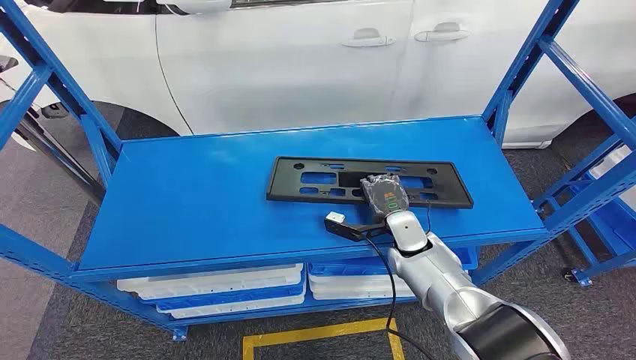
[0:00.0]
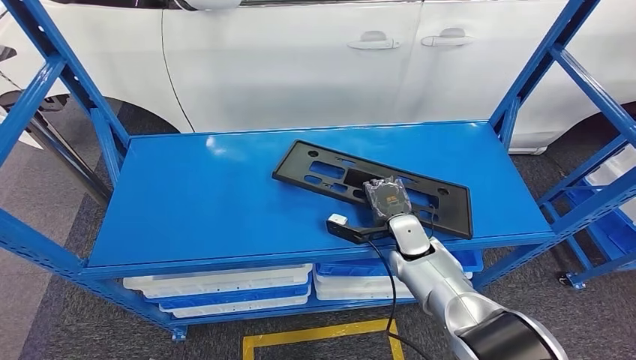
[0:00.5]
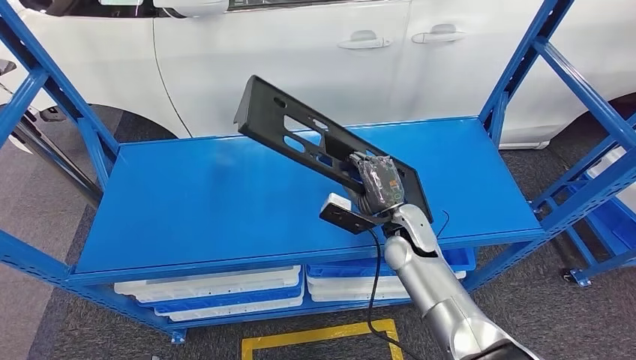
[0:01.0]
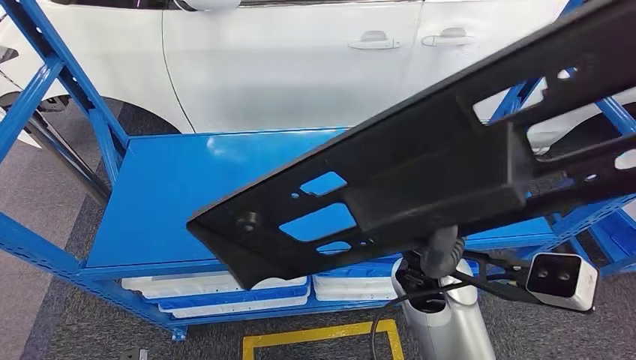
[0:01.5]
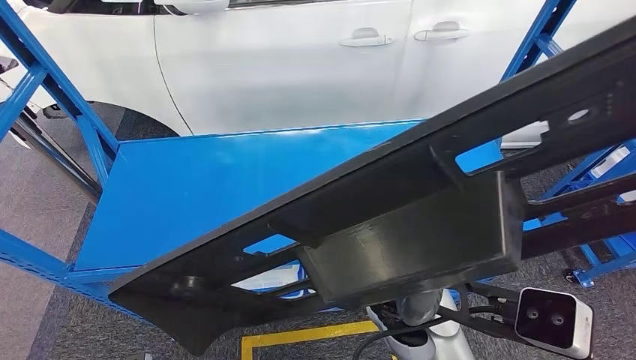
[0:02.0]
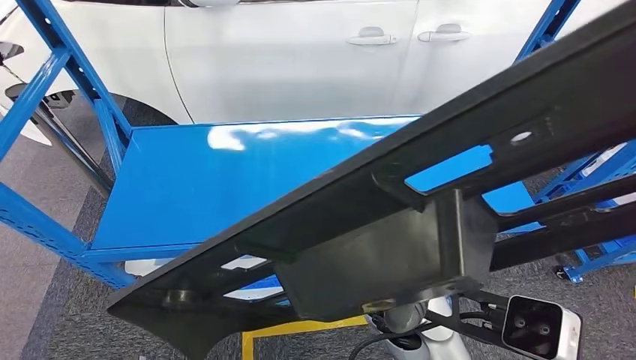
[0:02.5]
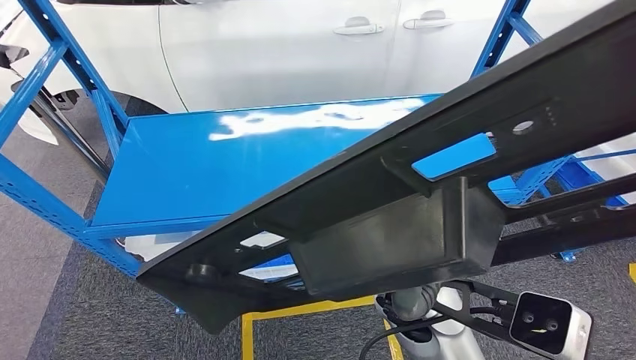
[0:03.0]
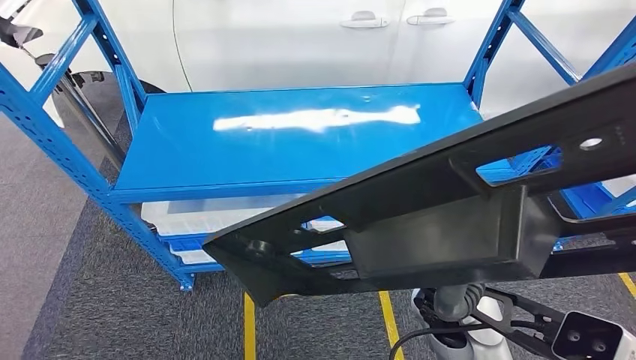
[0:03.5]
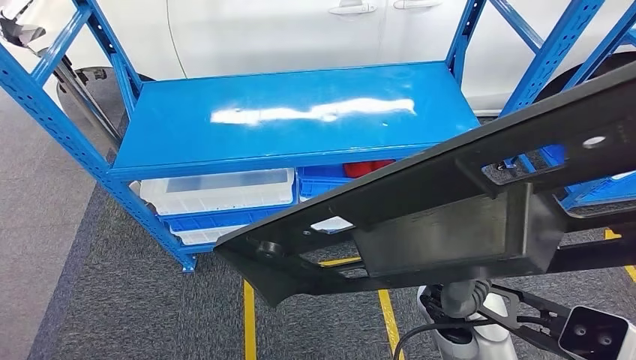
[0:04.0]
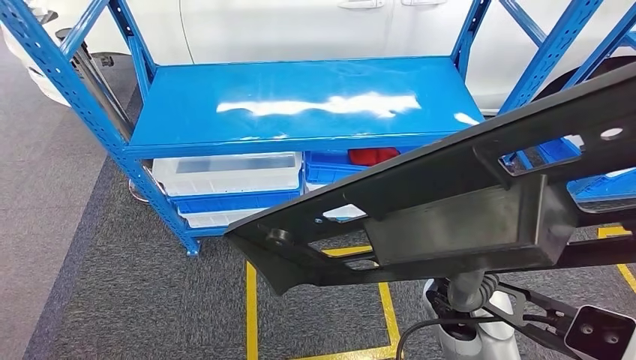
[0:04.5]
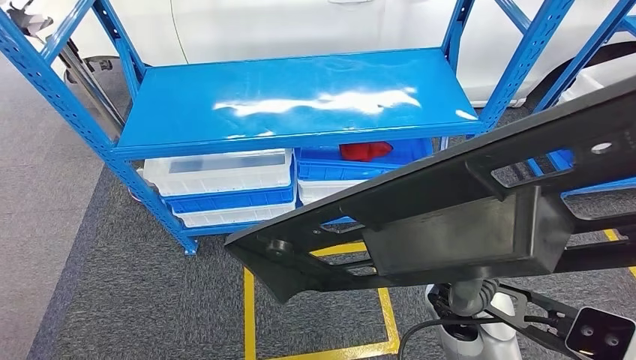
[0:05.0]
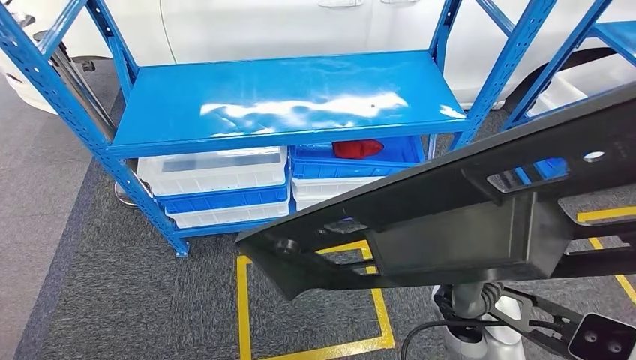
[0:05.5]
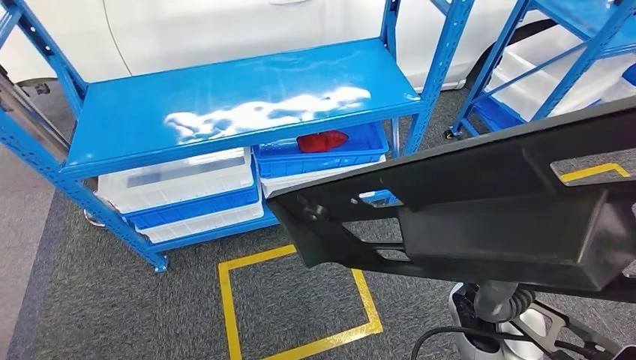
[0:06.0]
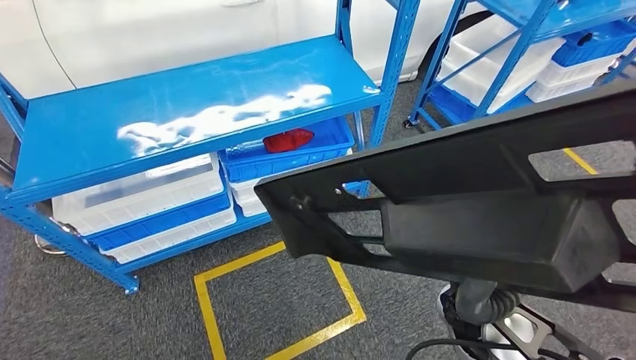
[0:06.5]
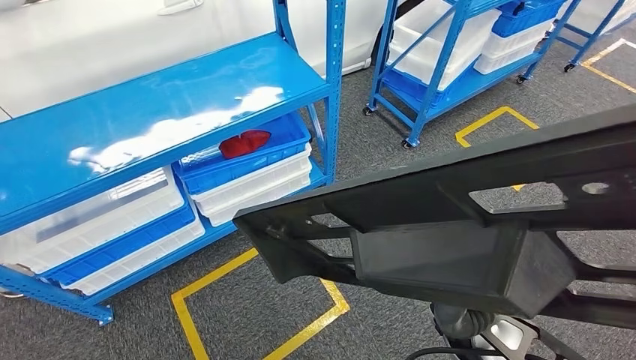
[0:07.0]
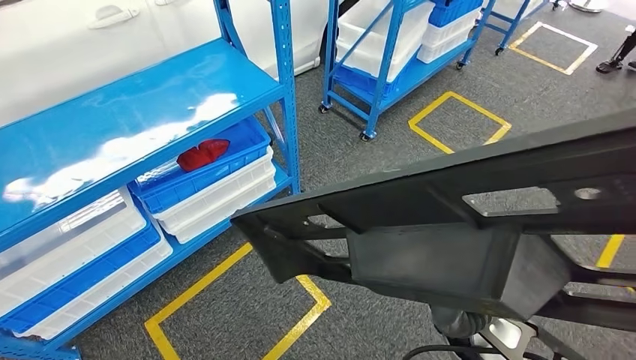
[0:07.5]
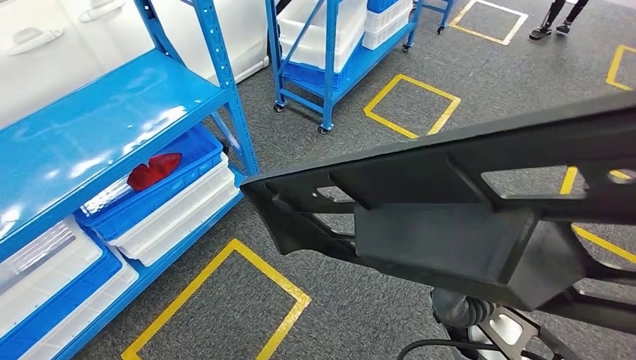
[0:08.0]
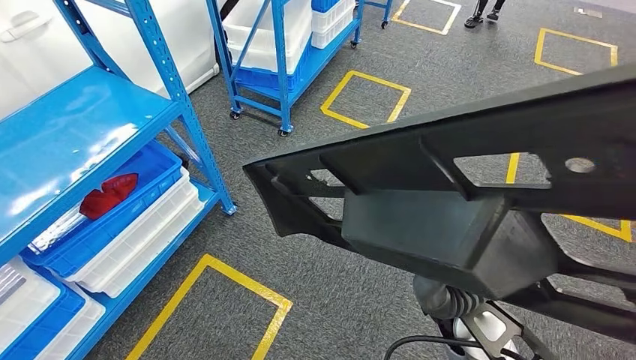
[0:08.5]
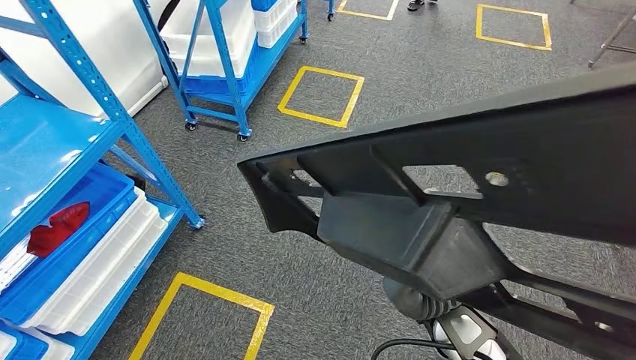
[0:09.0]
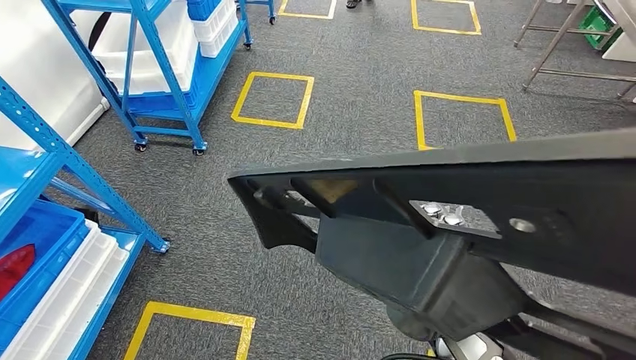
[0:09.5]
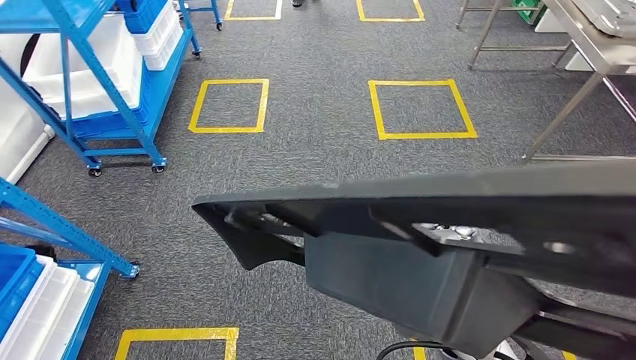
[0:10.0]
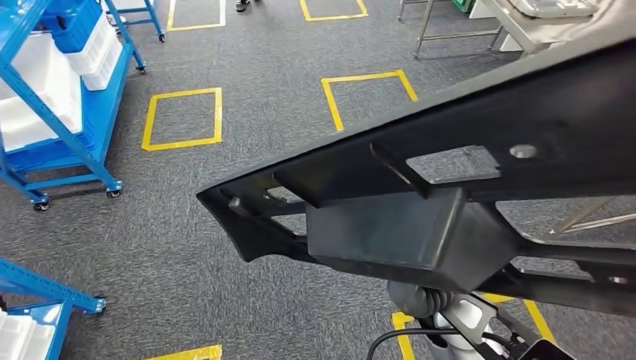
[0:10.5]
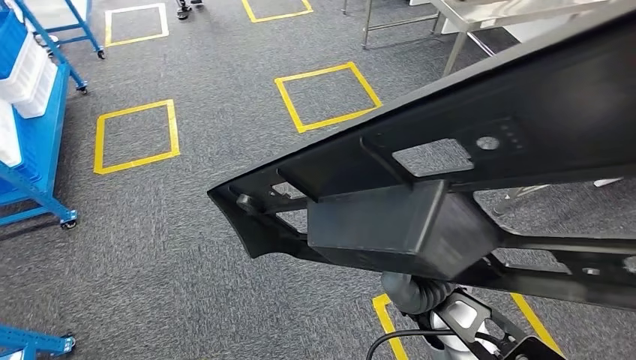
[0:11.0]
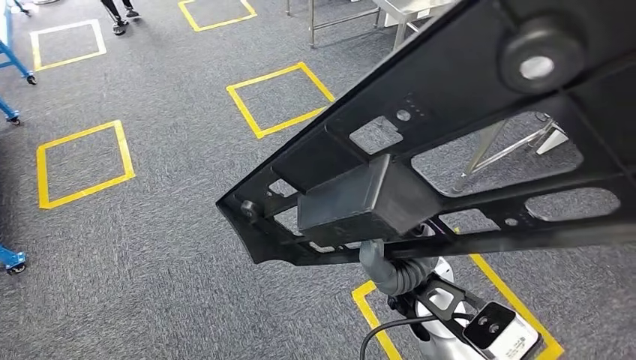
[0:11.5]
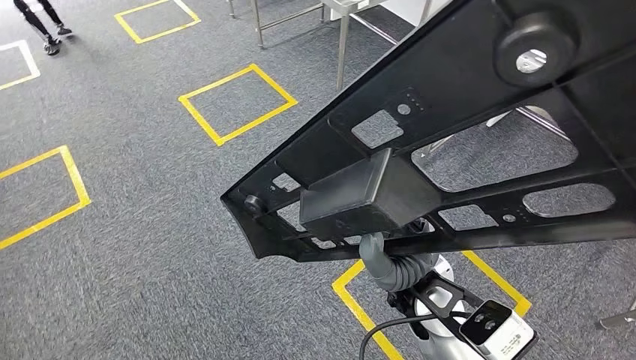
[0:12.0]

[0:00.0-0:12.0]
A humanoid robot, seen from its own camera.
Step, 0:00.0 to 0:04.0: Pick up the large material from the shelf.

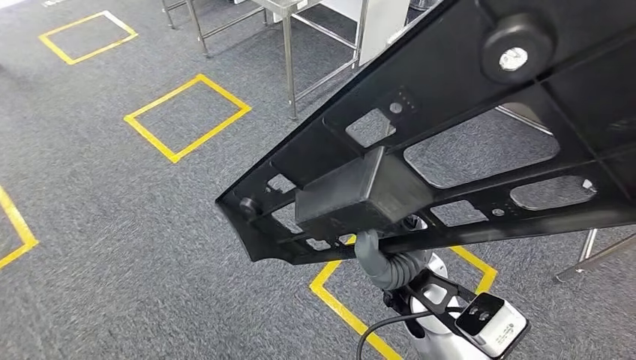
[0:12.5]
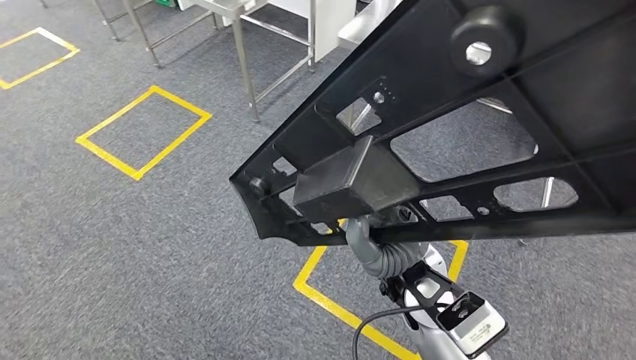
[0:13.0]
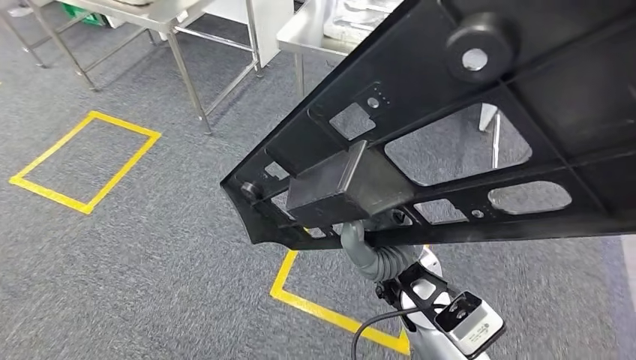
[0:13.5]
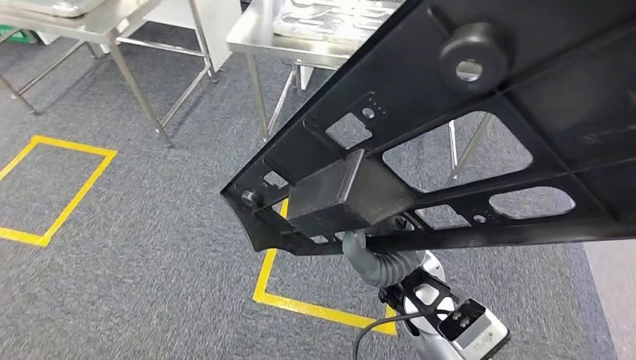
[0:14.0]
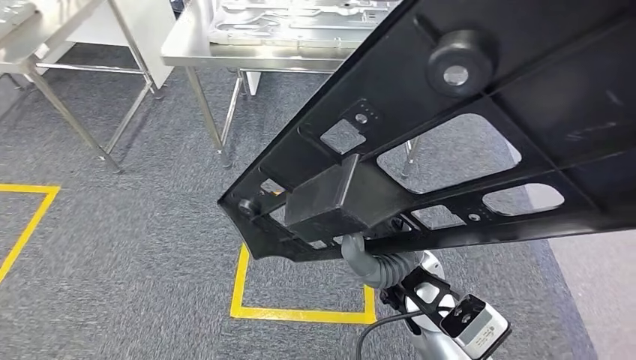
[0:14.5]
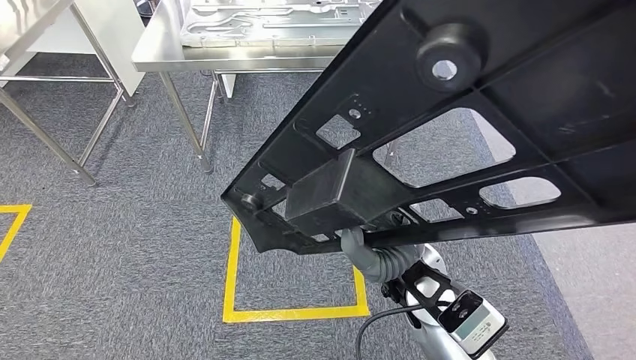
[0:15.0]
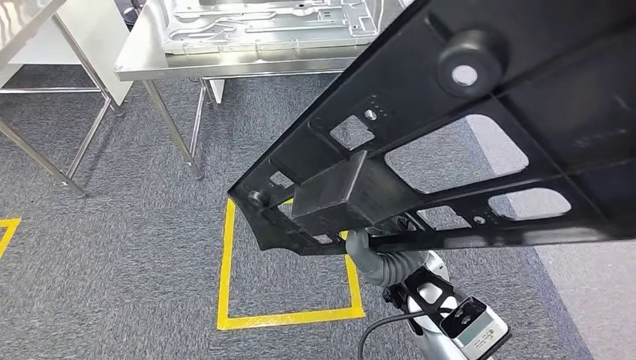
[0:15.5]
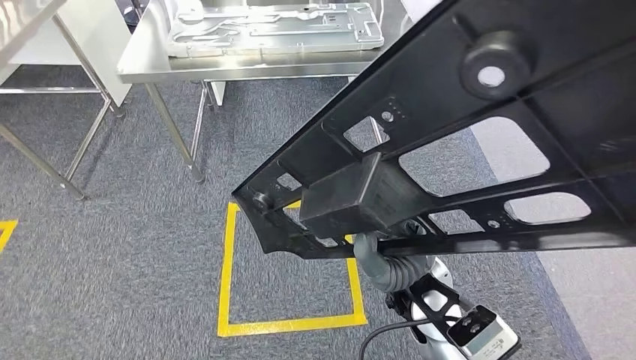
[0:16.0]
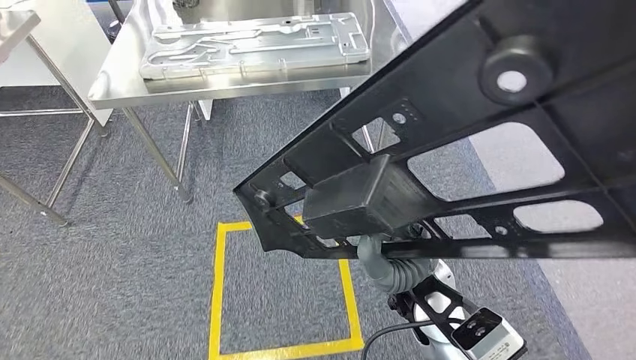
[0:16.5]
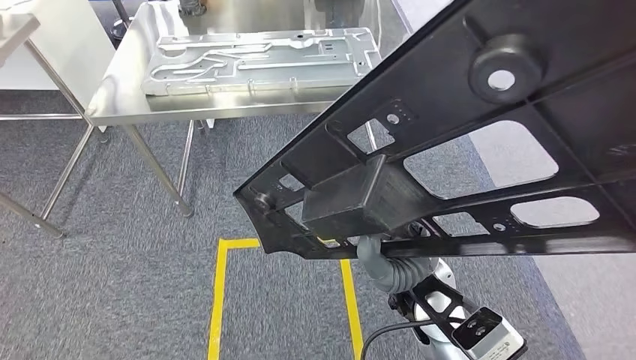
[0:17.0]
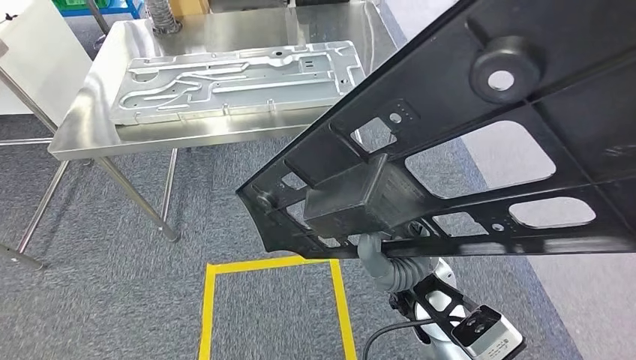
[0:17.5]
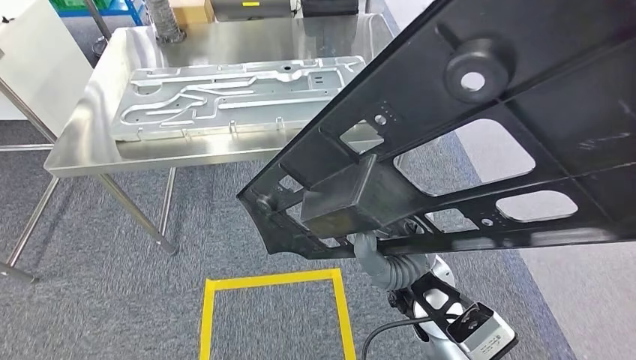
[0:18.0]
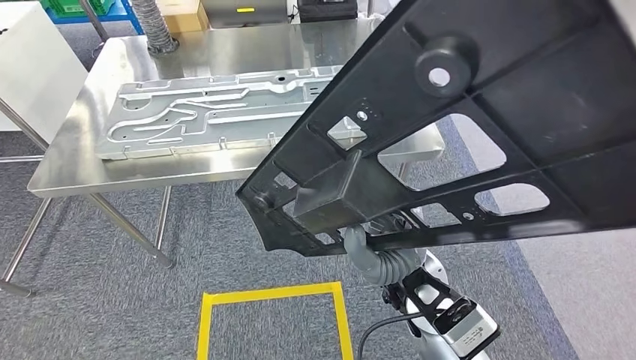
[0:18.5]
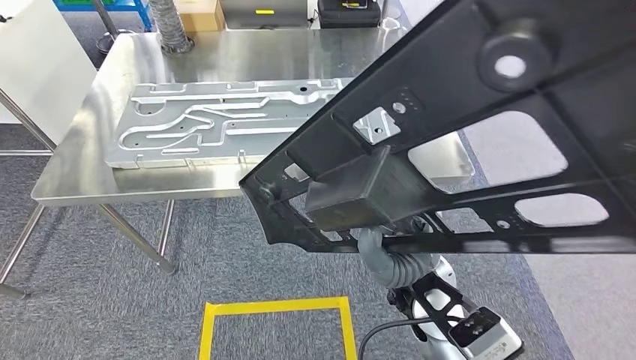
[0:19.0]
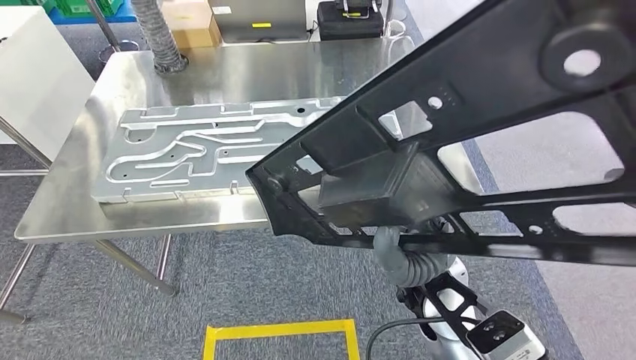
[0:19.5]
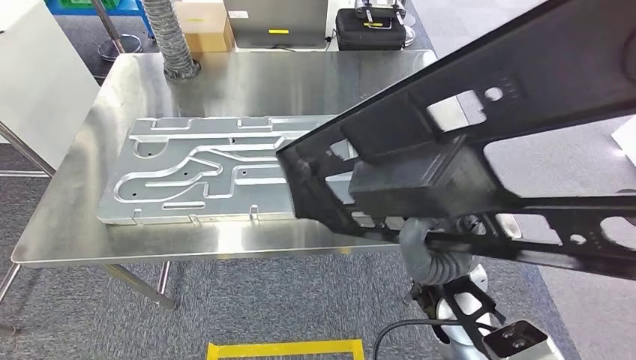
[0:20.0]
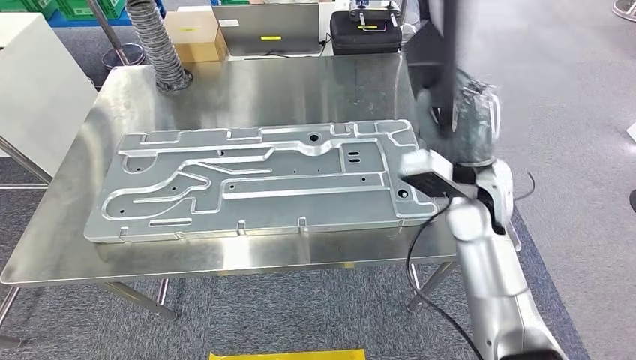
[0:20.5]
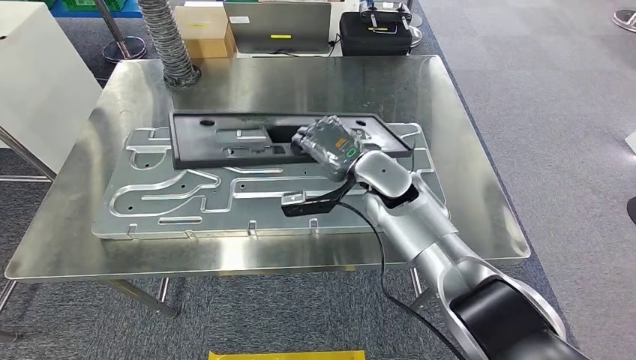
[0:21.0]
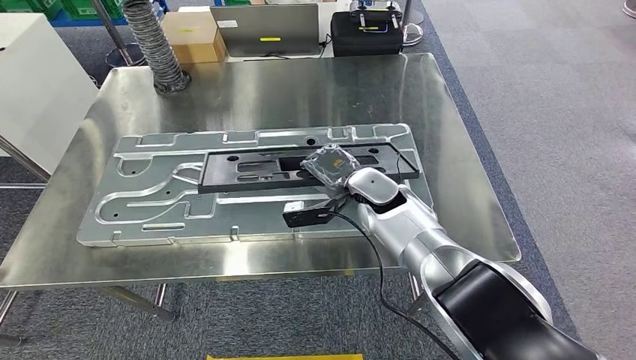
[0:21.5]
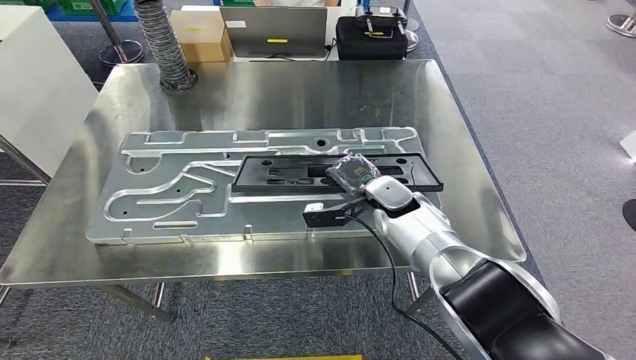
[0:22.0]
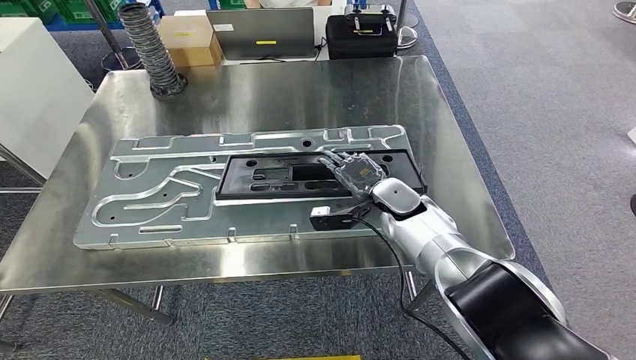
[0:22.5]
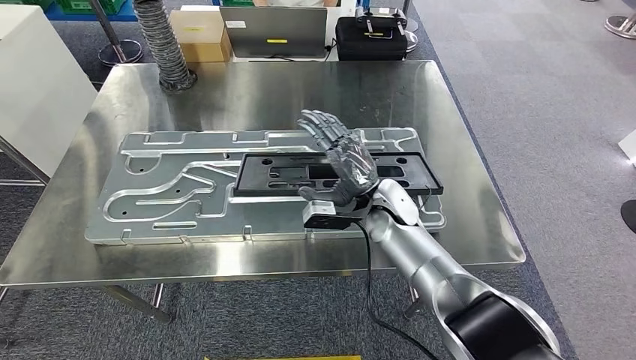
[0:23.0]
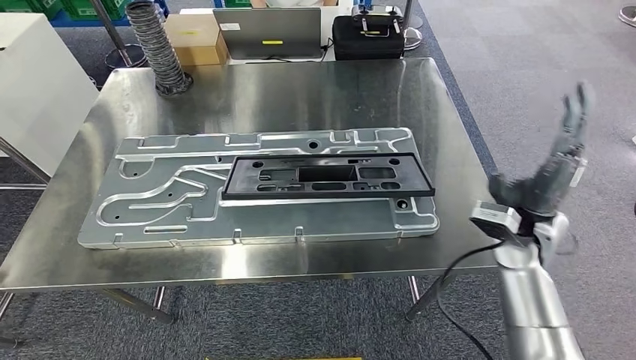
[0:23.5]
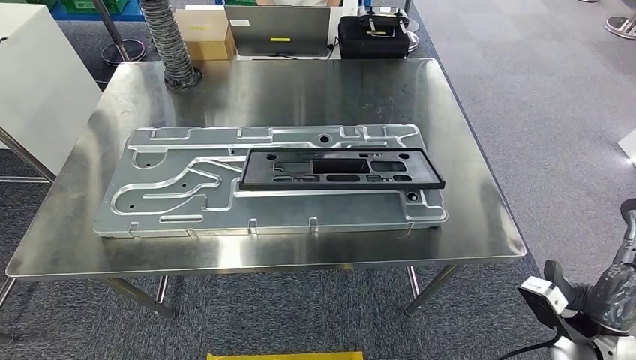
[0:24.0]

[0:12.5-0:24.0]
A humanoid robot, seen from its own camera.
Step, 0:12.5 to 0:20.0: Move the large material to the workbench.
Step, 0:20.5 to 0:23.0: Insert the large material into the corresponding slot on the workbench.
